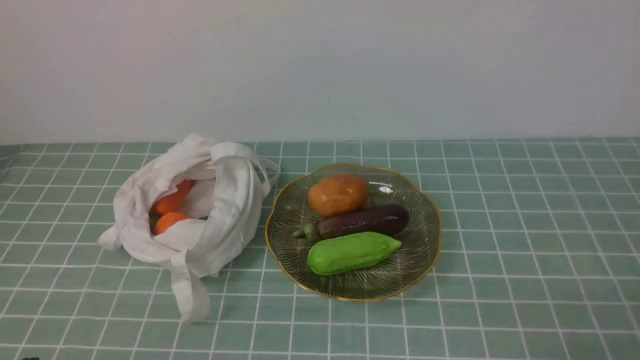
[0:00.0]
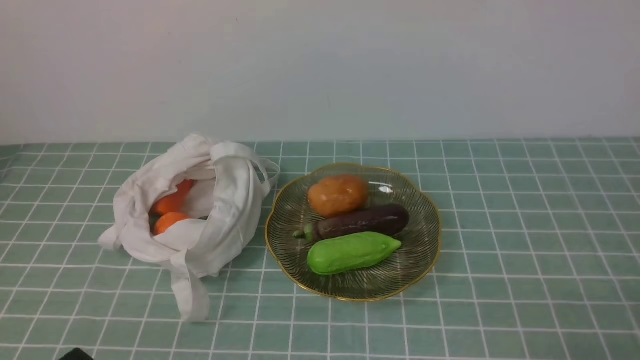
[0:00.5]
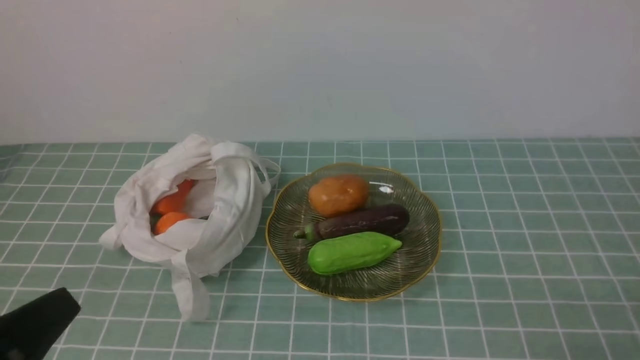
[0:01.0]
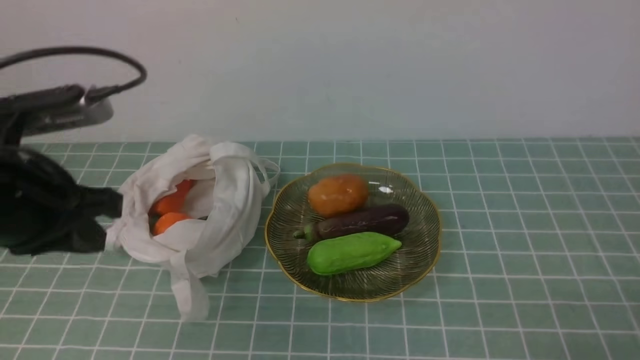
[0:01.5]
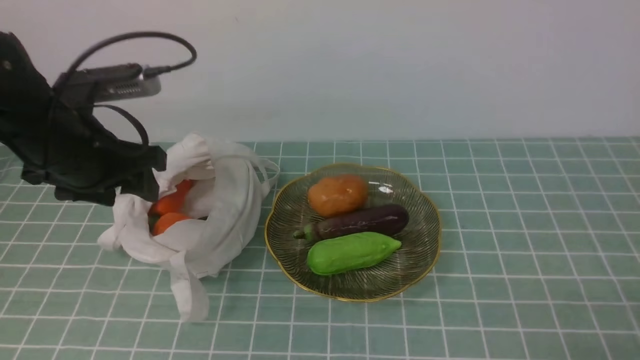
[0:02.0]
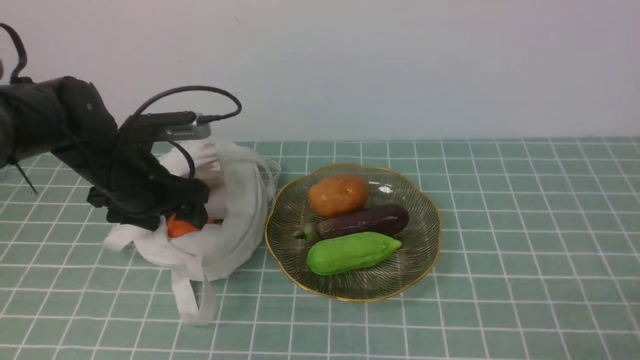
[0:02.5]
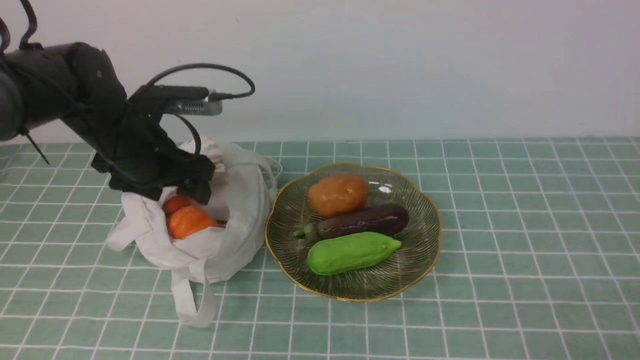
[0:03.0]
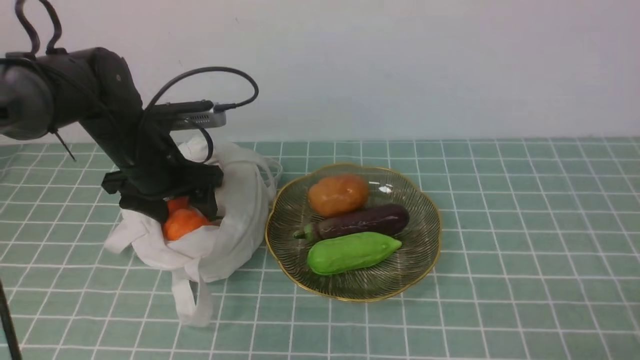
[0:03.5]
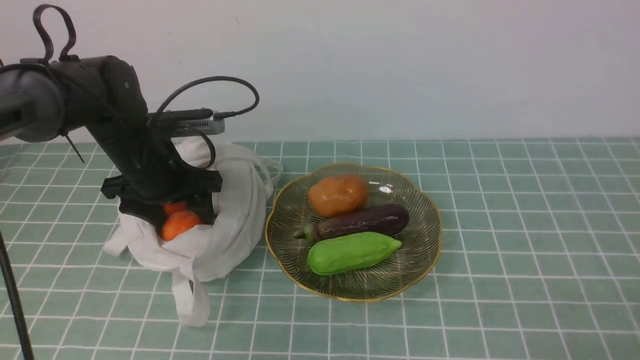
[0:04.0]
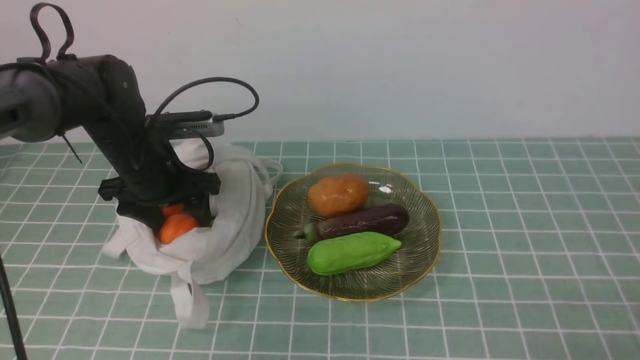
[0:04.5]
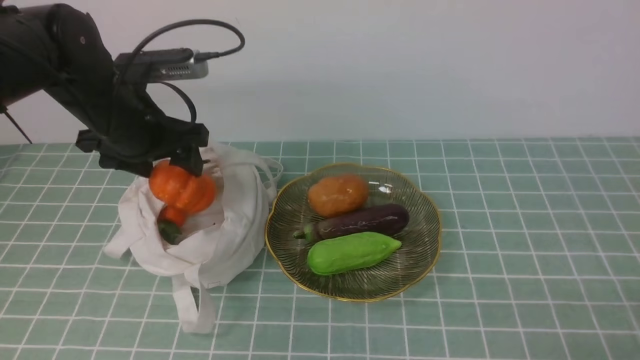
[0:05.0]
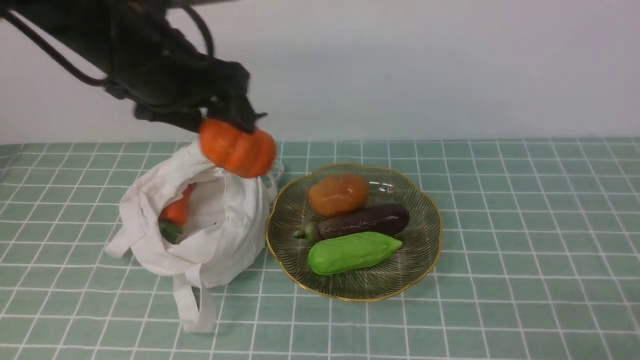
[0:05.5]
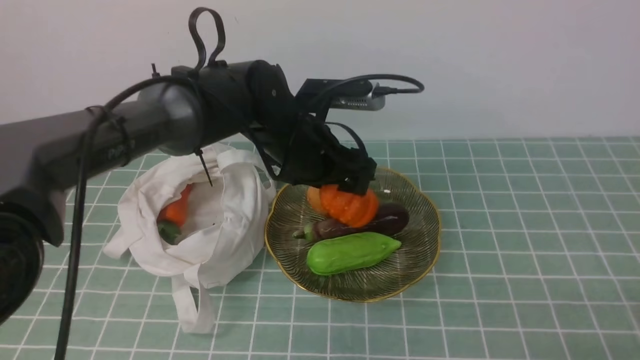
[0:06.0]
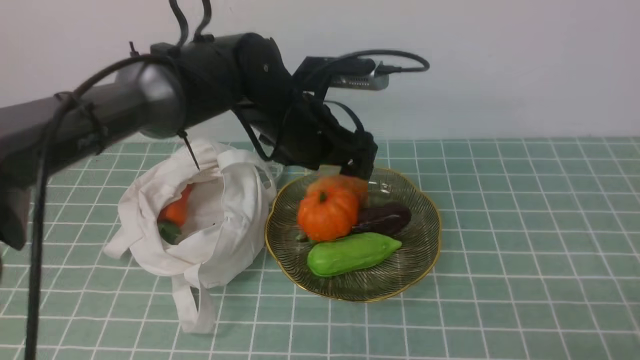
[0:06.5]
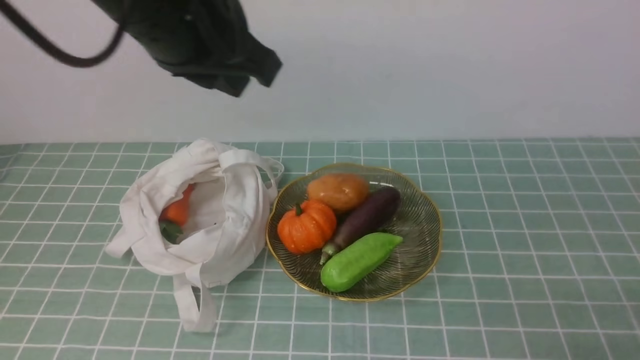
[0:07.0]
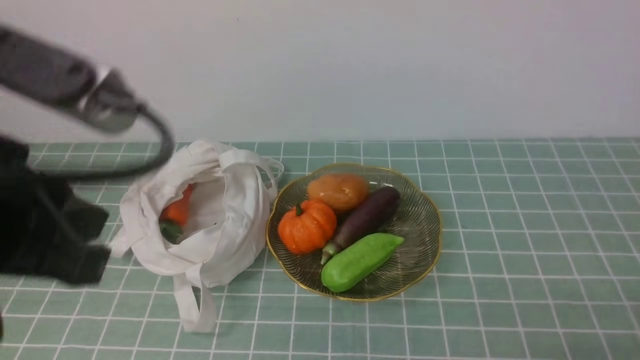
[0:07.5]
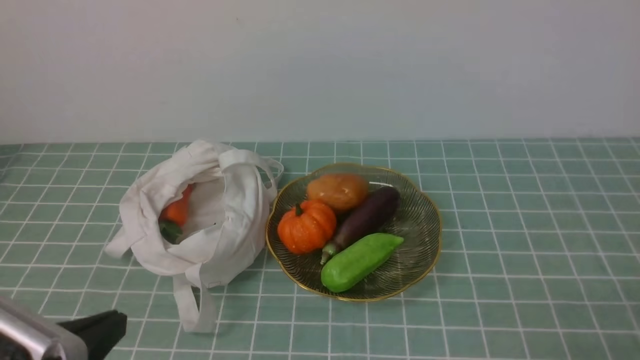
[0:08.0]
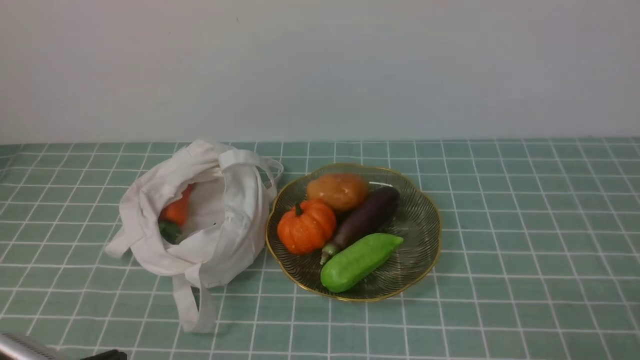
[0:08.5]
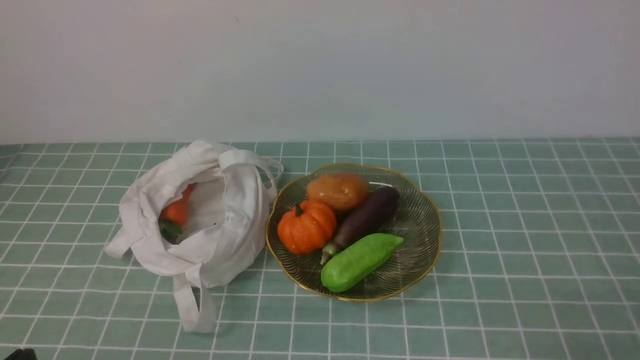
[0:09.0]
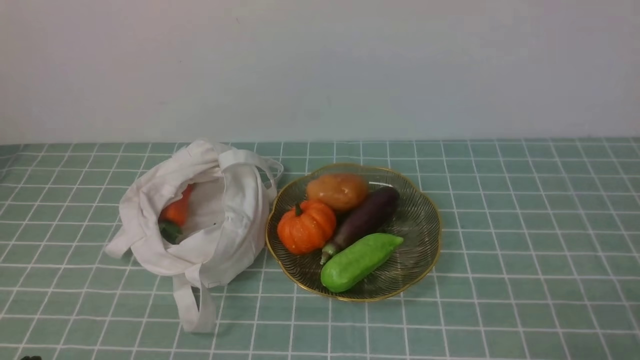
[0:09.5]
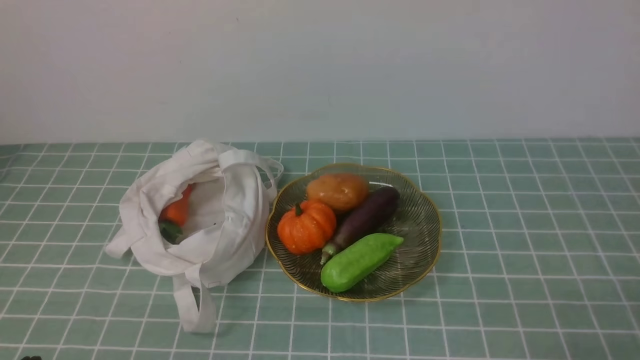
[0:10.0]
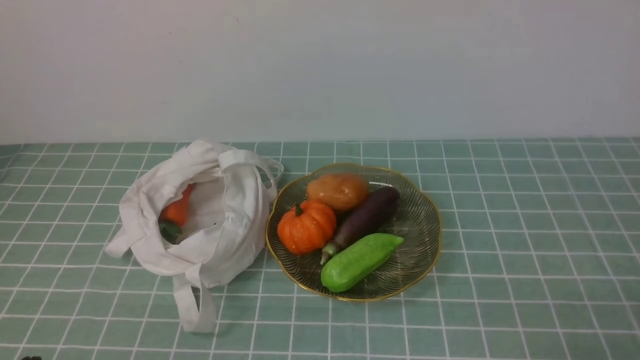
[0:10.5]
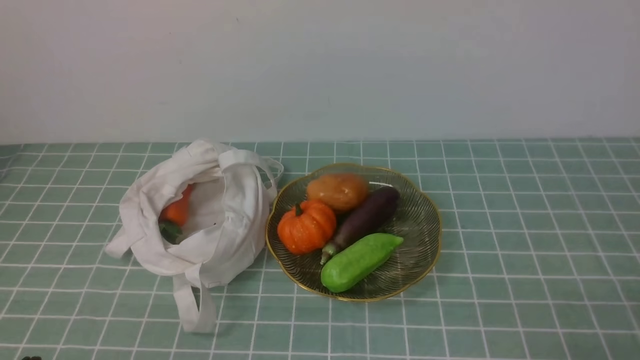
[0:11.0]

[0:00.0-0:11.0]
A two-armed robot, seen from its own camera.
Task of the whole recording: take vegetables from cloth bag on blue coffee tablecloth place on plate.
Step, 0:00.0 to 0:04.5: Grasp the pumpkin with left gripper.
Step, 0:05.0 to 0:06.5: Place the pumpkin on the plate with left gripper.
0:00.0 to 0:02.0: The left gripper shifts approximately 30 cm forward, and opens its fingers.
0:02.0 to 0:03.5: The left gripper goes approximately 10 cm forward and downward.
0:03.5 to 0:05.5: The left gripper heads upward and to the right, covering roughly 15 cm.
0:05.5 to 0:07.5: The left gripper goes approximately 20 cm backward, and closes its fingers.
0:07.5 to 0:09.0: The left gripper travels downward and backward by some 20 cm.
0:09.0 to 0:11.0: The two grippers keep their place.
